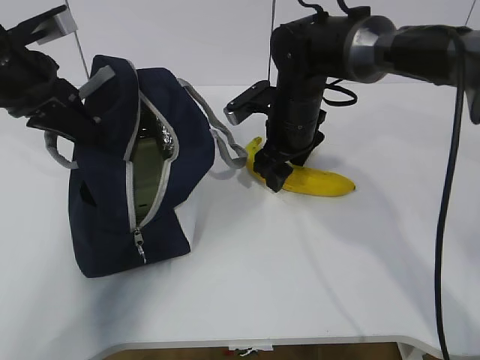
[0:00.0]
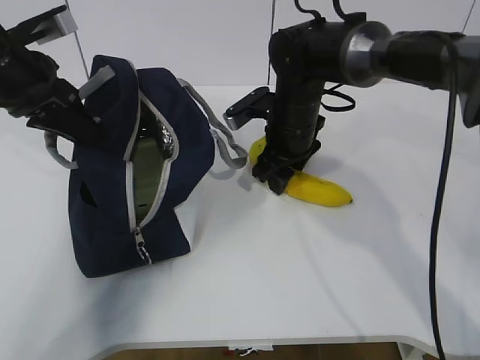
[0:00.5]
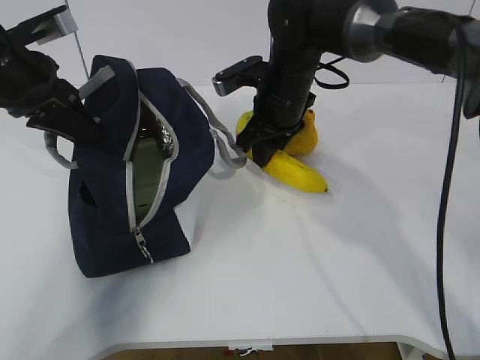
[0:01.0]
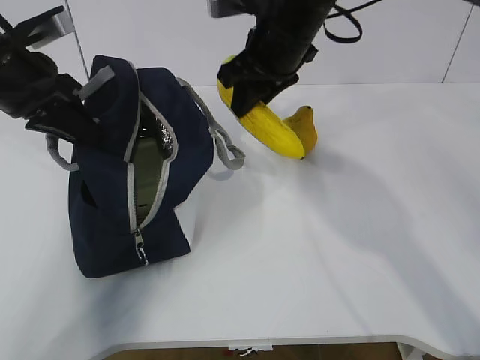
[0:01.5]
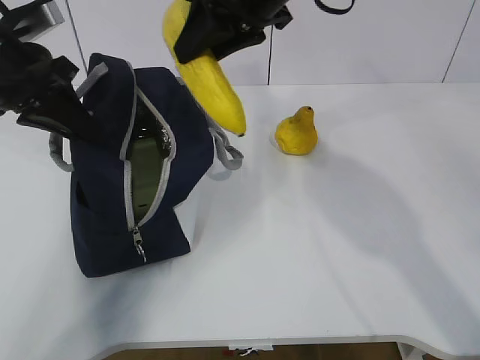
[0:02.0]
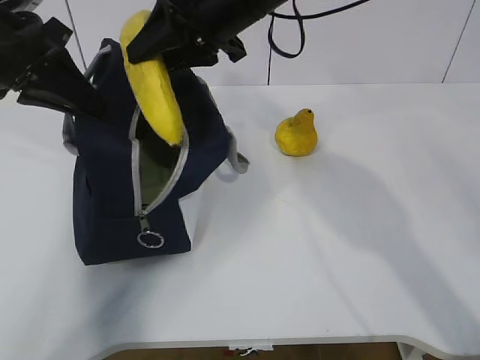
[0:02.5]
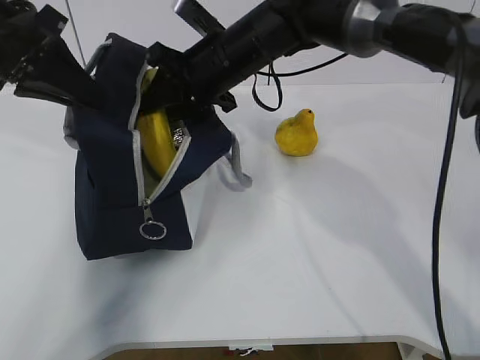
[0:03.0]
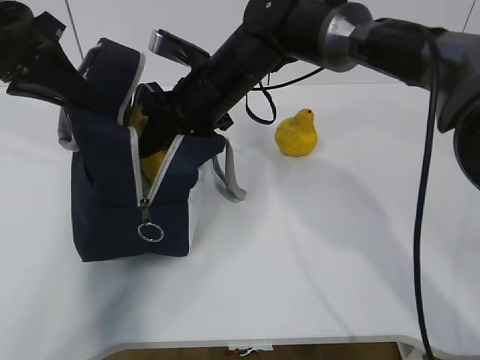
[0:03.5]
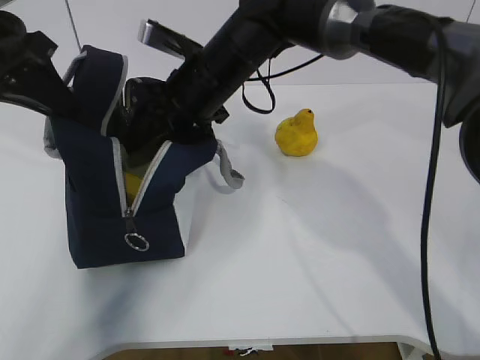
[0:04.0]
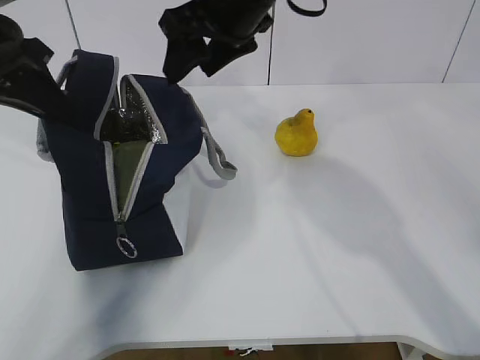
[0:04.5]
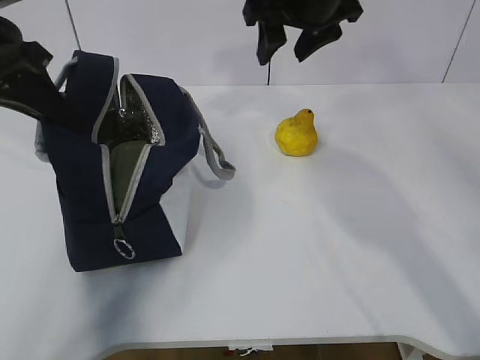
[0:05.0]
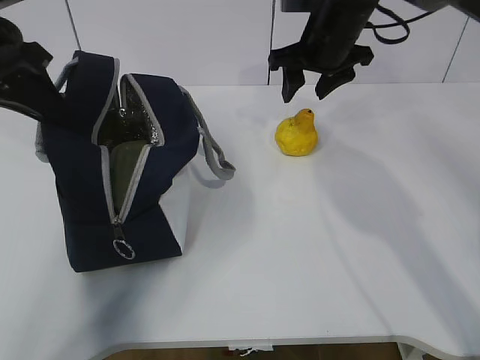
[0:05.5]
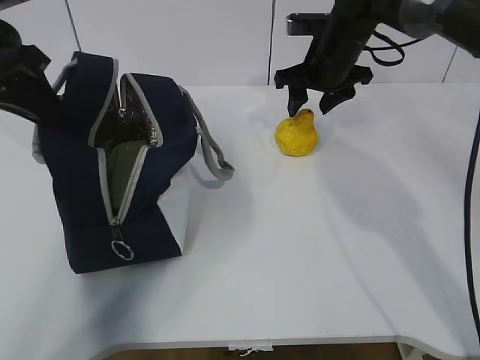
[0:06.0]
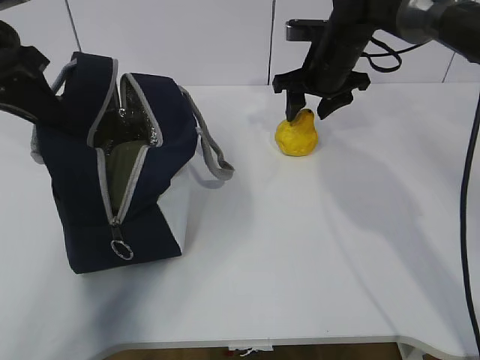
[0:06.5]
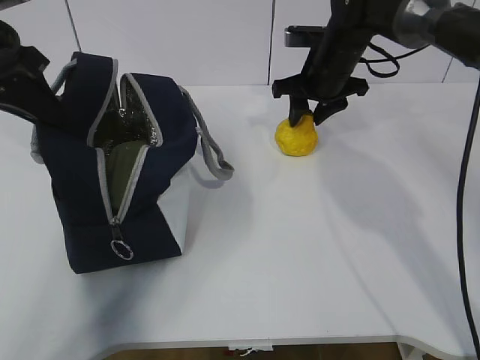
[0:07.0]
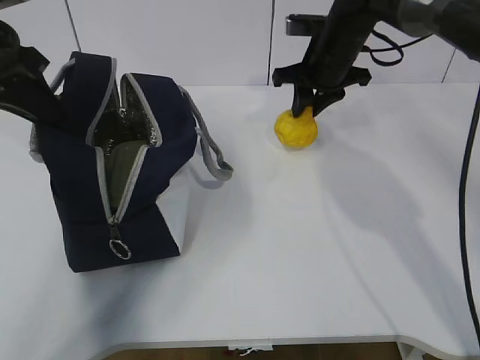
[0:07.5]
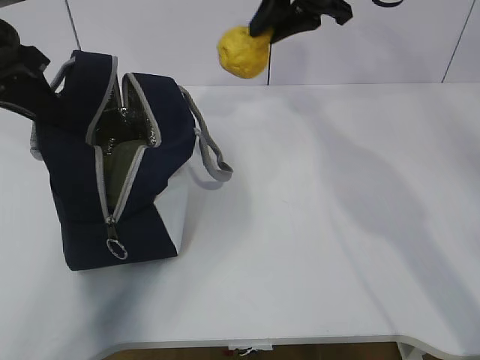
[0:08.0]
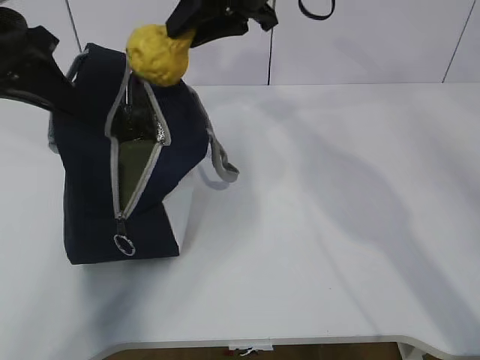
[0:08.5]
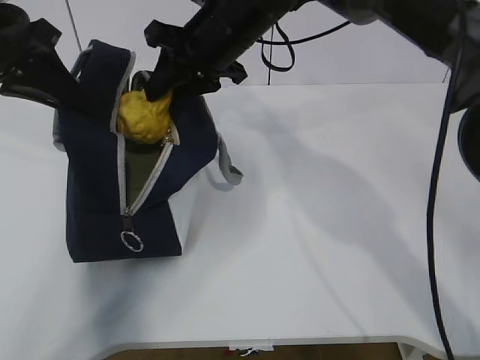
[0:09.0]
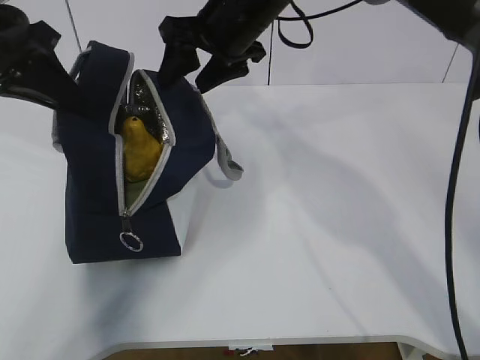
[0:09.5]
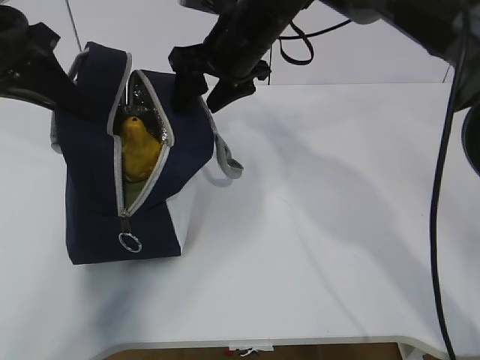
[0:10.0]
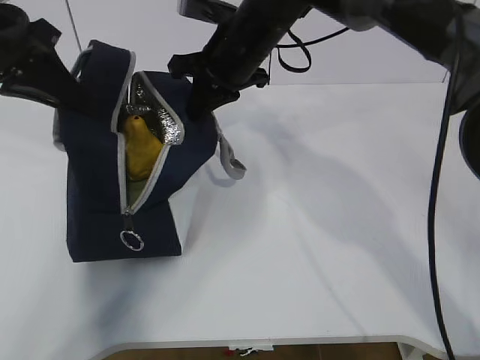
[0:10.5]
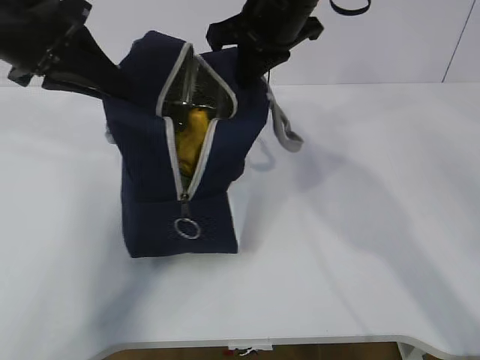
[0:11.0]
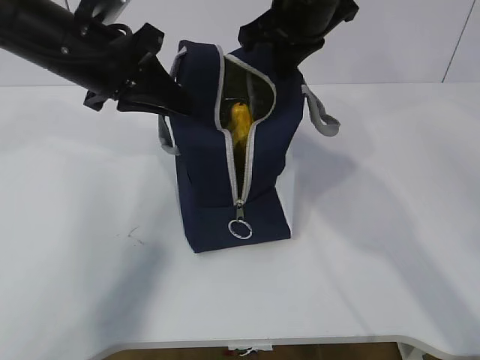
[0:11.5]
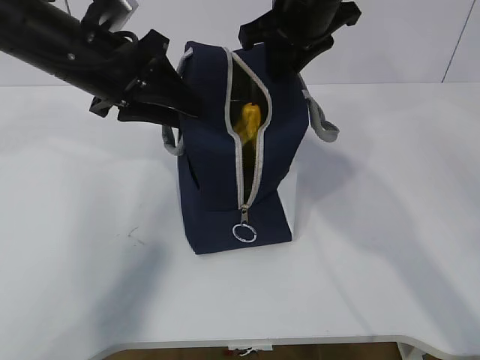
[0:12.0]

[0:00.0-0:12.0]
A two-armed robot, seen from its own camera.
Step, 0:00.5 to 0:02.5: Grab the pear with your right hand.
Step, 0:03.0 to 0:04.0: Secure the lunch bag with your left hand.
Step, 0:04.5 to 0:05.0: Grab the lunch bag with your right hand.
Step, 0:05.5 to 0:06.5: Move the lunch bag to the right.
0:00.0 to 0:02.0: The right gripper goes approximately 20 cm upward, and closes up.
0:02.0 to 0:04.0: The right gripper goes about 15 cm downward and to the left, and opens.
0:04.0 to 0:06.0: The right gripper is displaced to the right and forward by roughly 20 cm.
0:06.0 to 0:08.0: The right gripper travels upward by about 10 cm, and closes its fingers.
0:08.0 to 0:10.0: The right gripper is displaced to the left and downward by about 10 cm, and opens its fingers.
0:10.0 to 0:12.0: The right gripper goes approximately 10 cm to the right and upward, and closes up; the left gripper travels to the right by approximately 10 cm, and opens its fingers.

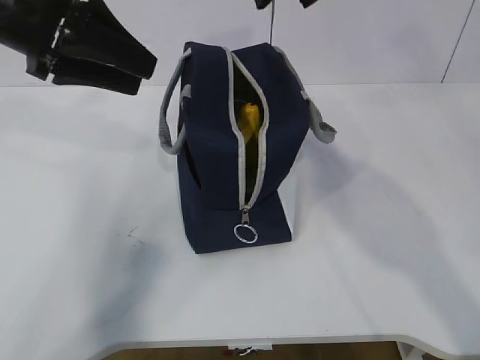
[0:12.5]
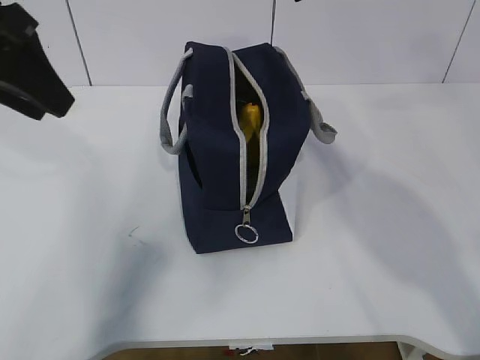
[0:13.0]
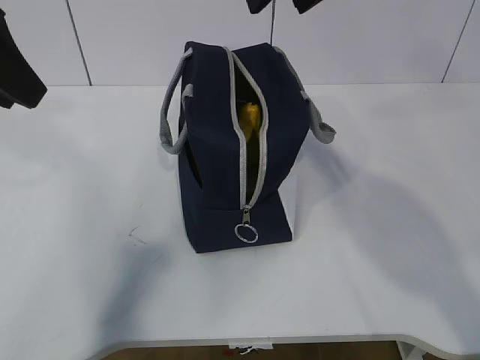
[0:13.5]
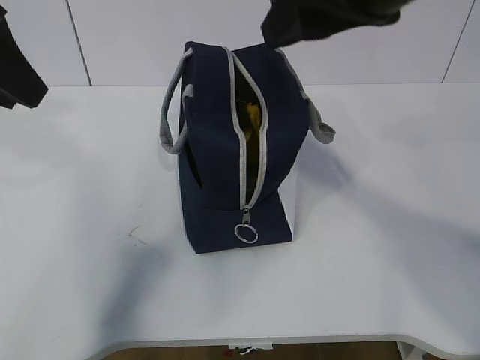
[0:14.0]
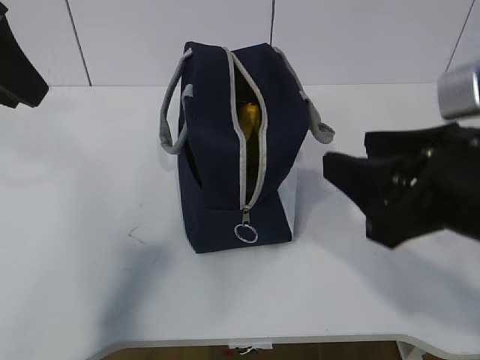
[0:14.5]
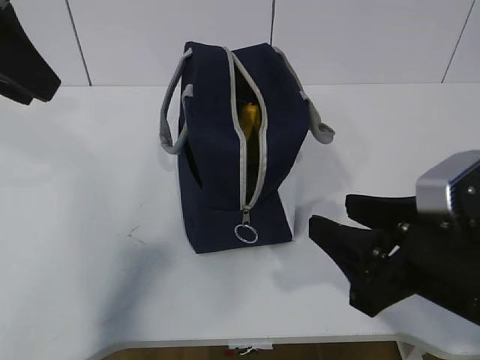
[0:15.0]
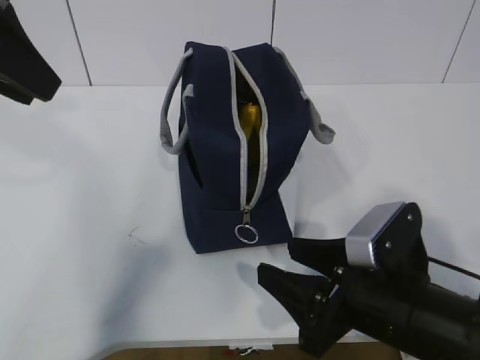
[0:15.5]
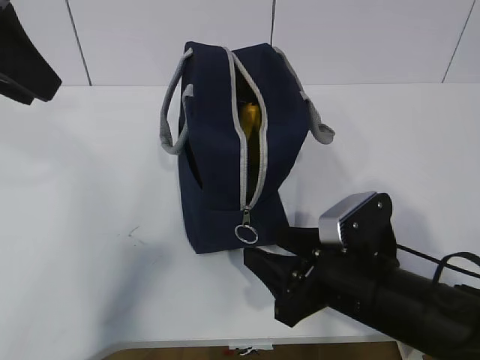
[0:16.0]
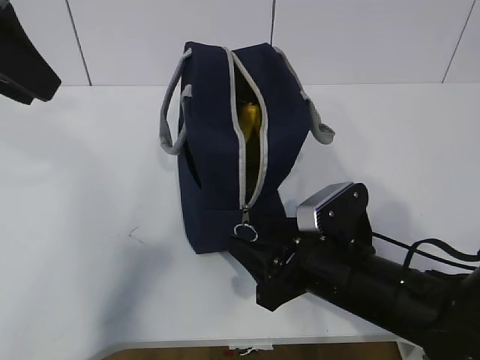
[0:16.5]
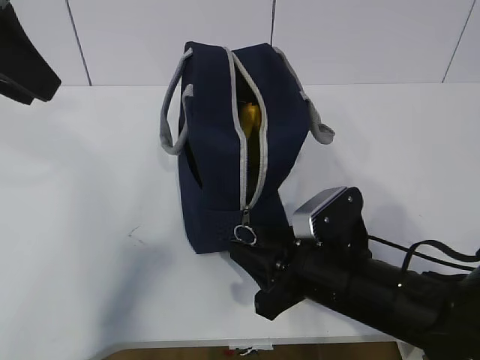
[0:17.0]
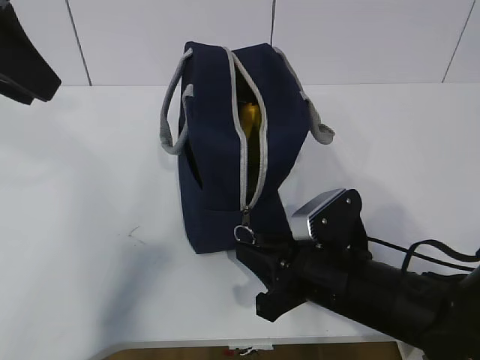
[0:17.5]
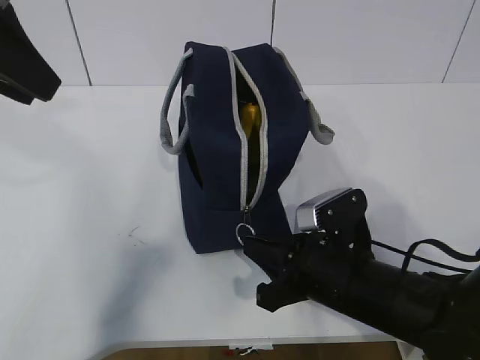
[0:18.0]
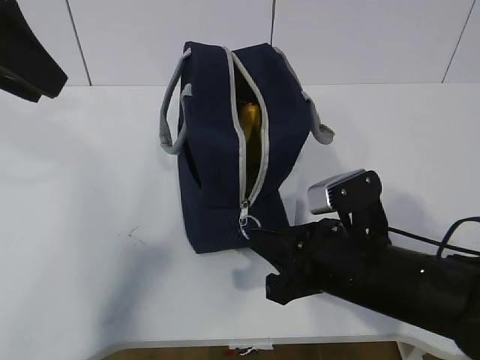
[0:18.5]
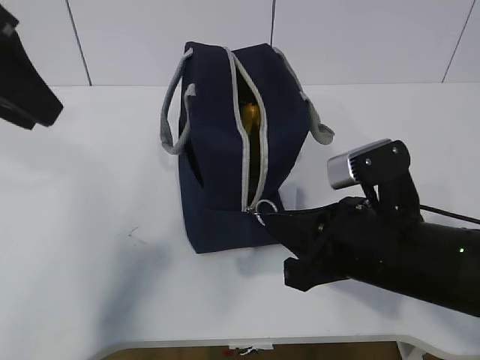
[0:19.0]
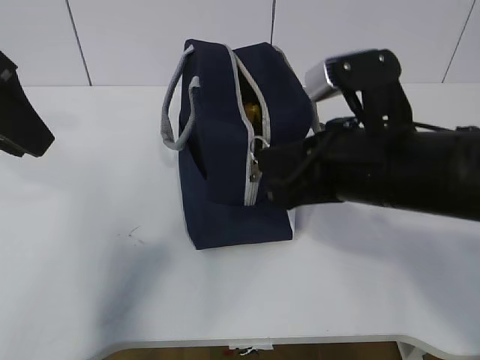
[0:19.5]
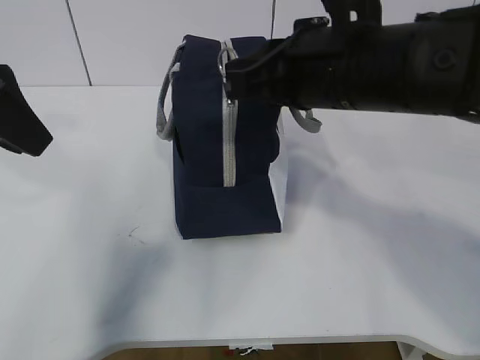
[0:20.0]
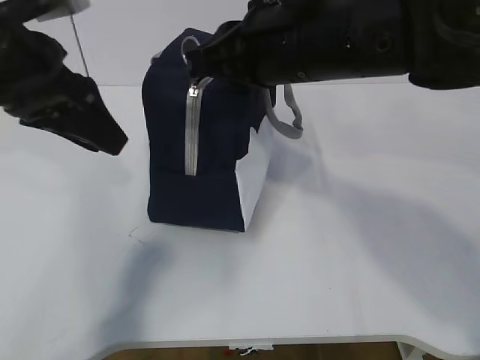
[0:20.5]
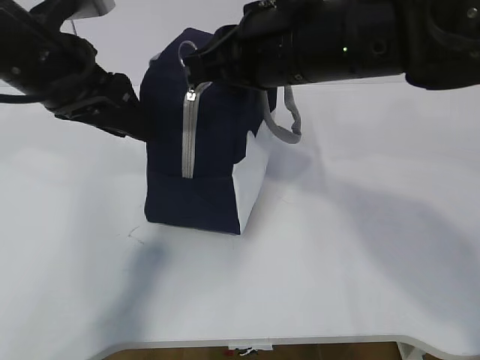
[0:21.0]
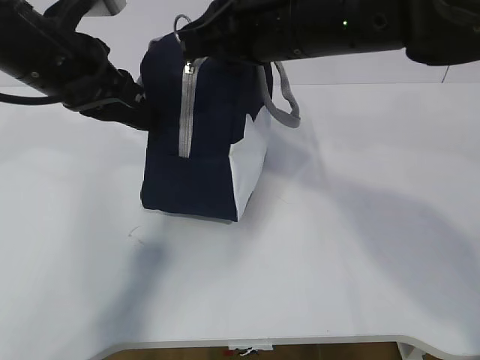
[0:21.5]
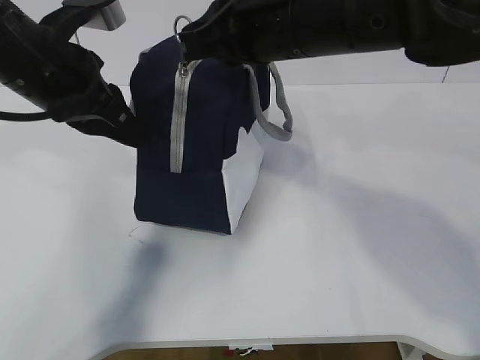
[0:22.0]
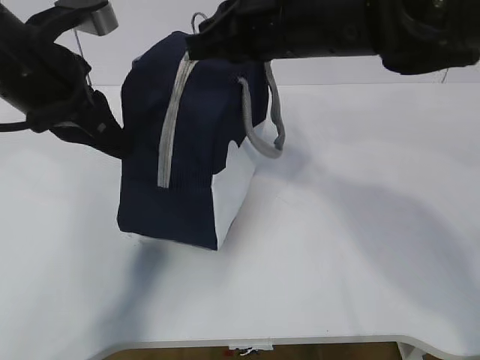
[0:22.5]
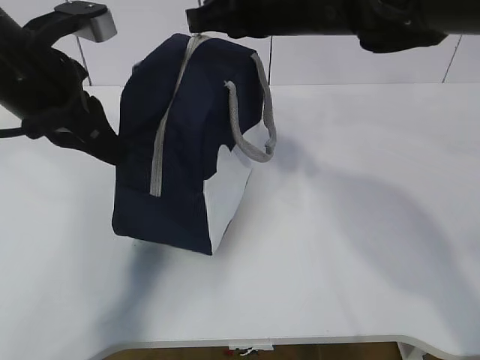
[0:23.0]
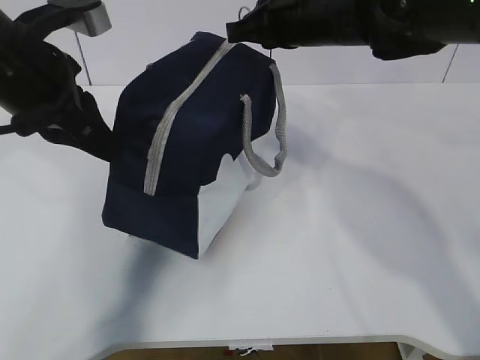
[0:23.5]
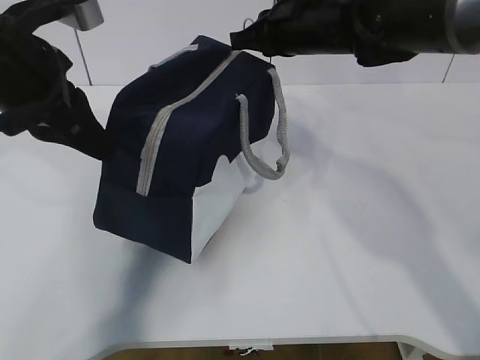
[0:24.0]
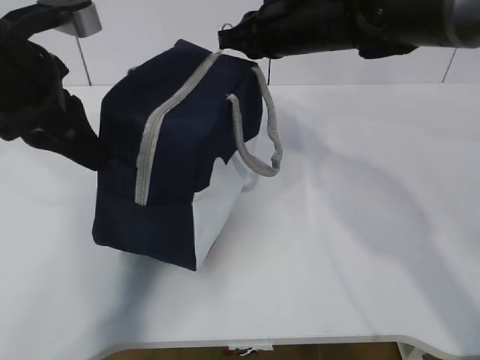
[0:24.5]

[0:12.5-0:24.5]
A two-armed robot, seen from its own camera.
Step, 0:17.5 to 0:21.5: Pull the zipper with your right hand.
0:12.5 to 0:14.5: The left gripper is displaced backward by approximately 5 cm; the right gripper shifts some 25 cm backward and downward.
0:14.5 to 0:16.5: The right gripper moves downward, about 15 cm.
0:16.5 to 0:18.5: The right gripper closes up.
0:18.5 to 0:20.5: The left gripper goes some 5 cm downward, while the right gripper shifts about 20 cm upward and forward.
0:20.5 to 0:22.5: The left gripper closes up.
0:22.5 to 0:24.5: The right gripper heads forward, covering some 10 cm.

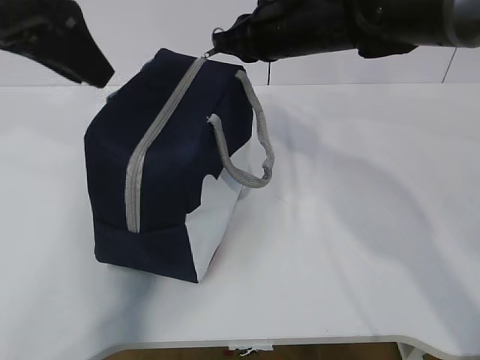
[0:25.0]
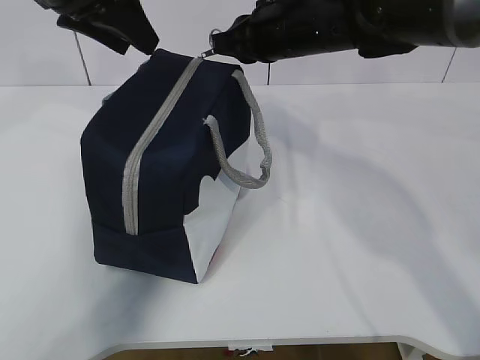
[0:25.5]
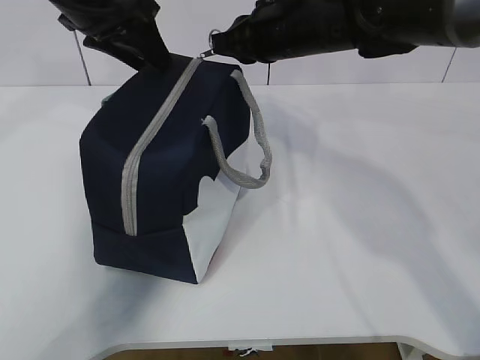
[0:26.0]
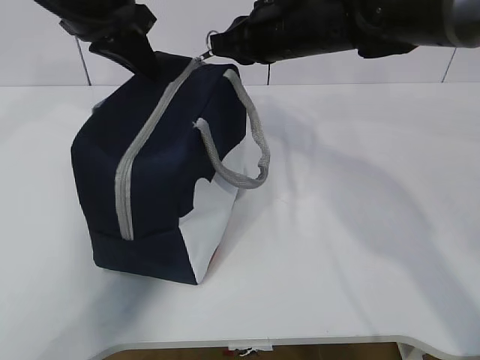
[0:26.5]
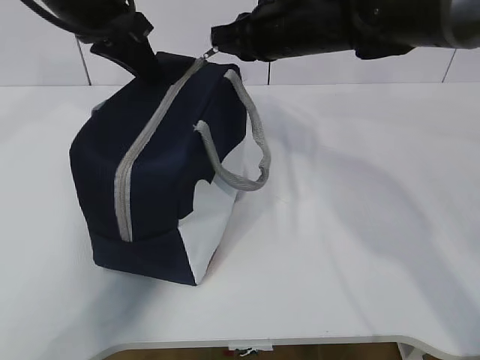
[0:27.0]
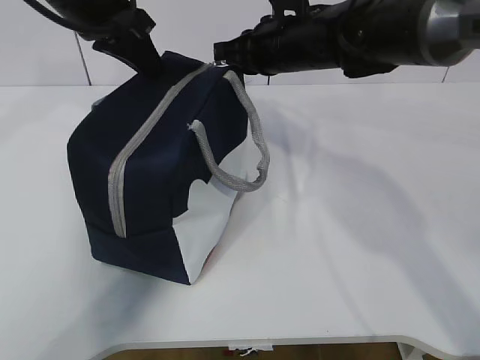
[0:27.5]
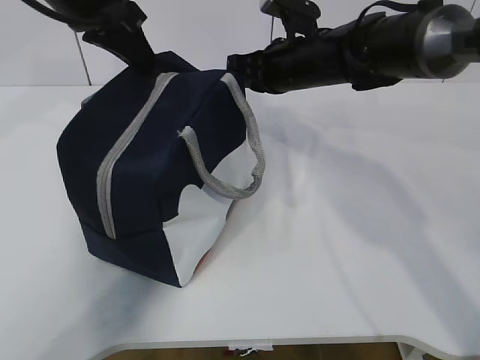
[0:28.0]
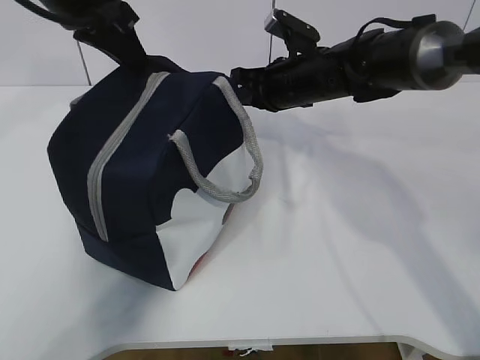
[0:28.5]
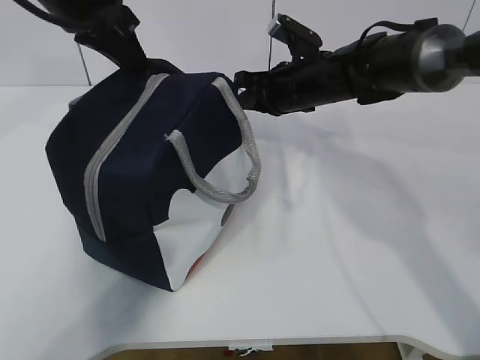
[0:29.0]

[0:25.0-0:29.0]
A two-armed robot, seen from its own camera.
0:25.0 to 0:27.0: The left gripper moves forward, roughly 10 cm, and closes.
0:27.0 to 0:29.0: The right gripper moves downward, approximately 10 cm.
